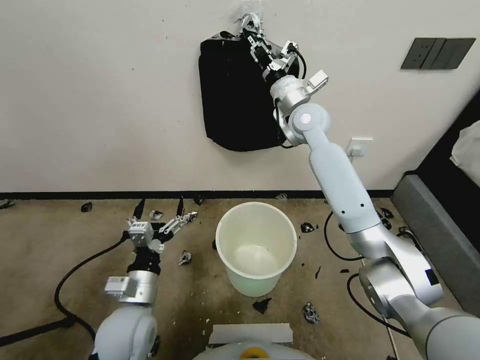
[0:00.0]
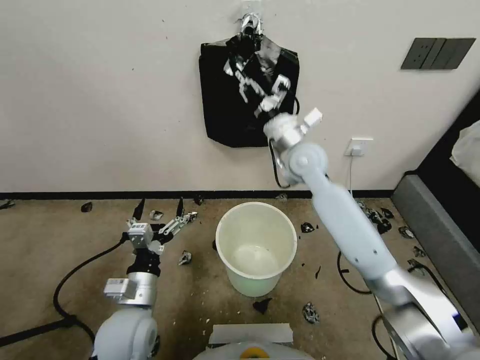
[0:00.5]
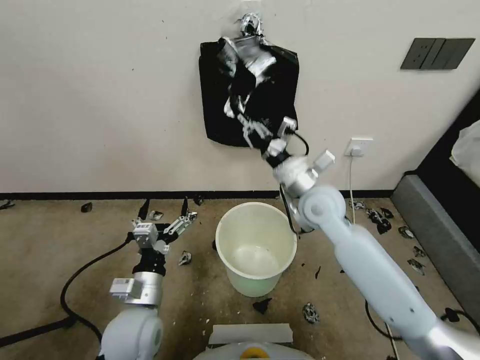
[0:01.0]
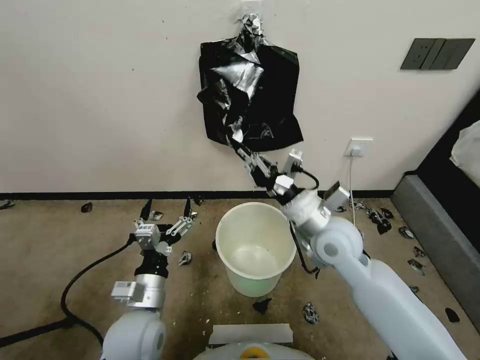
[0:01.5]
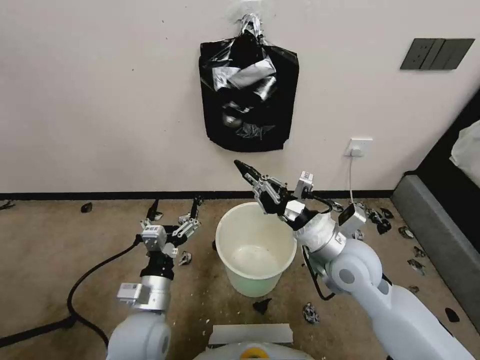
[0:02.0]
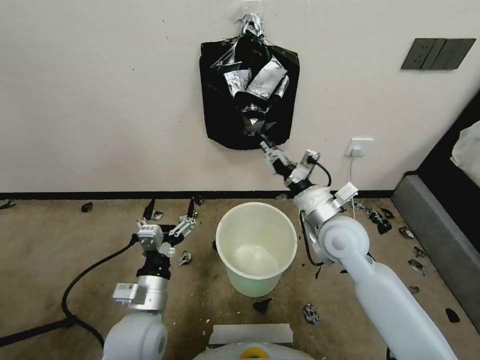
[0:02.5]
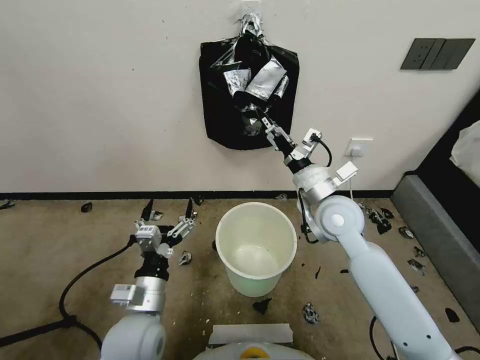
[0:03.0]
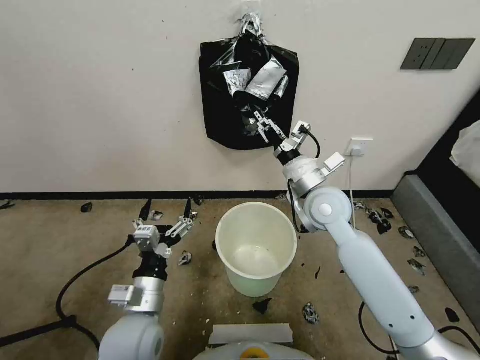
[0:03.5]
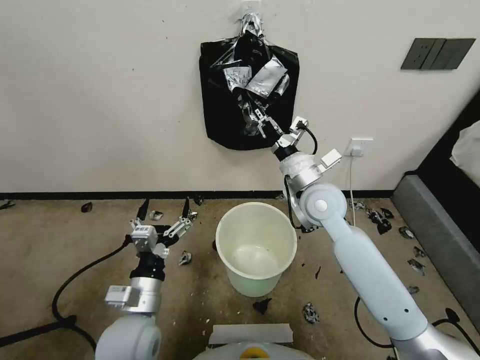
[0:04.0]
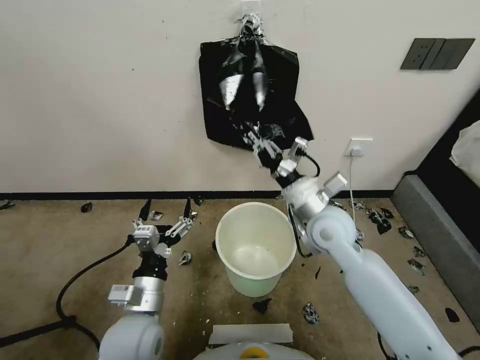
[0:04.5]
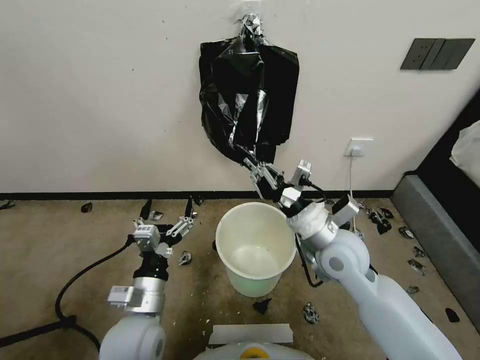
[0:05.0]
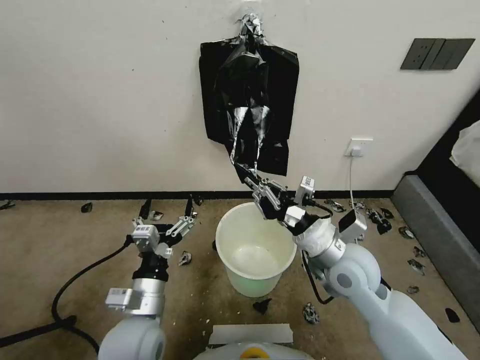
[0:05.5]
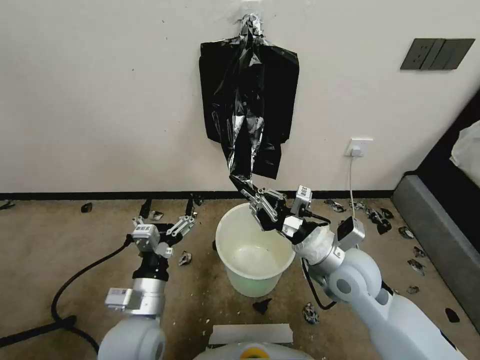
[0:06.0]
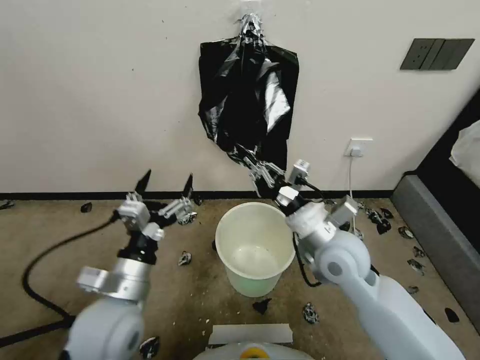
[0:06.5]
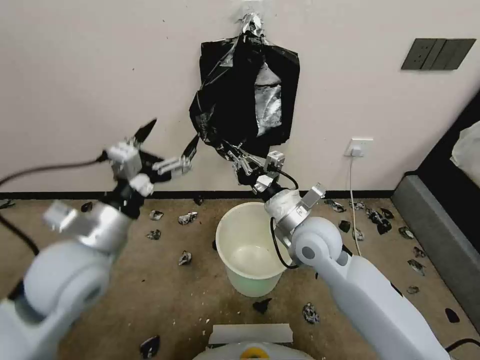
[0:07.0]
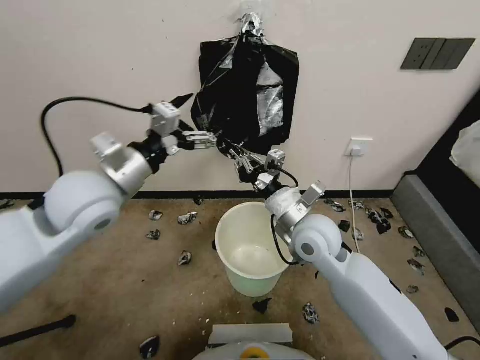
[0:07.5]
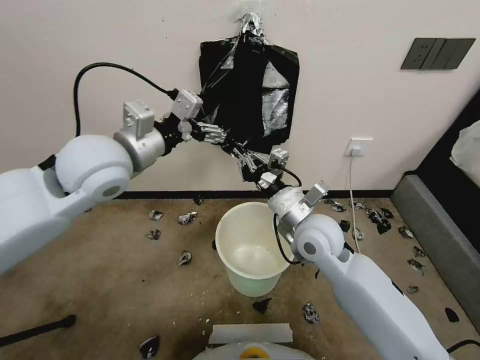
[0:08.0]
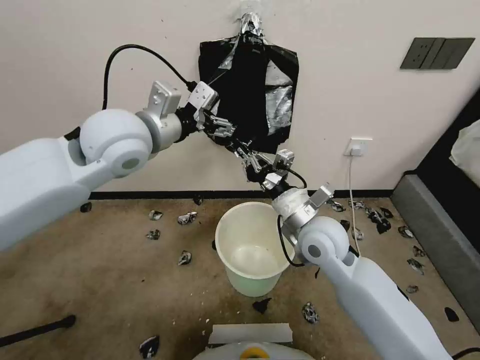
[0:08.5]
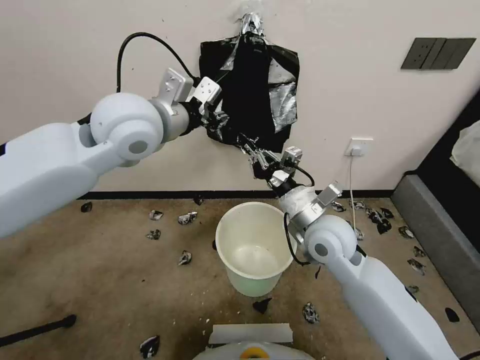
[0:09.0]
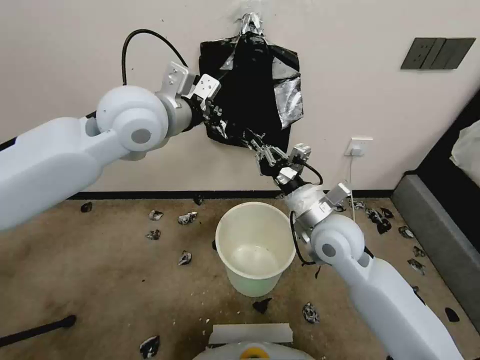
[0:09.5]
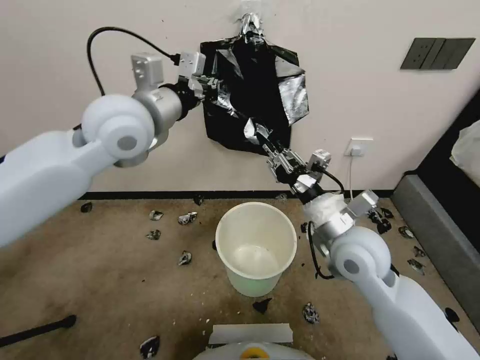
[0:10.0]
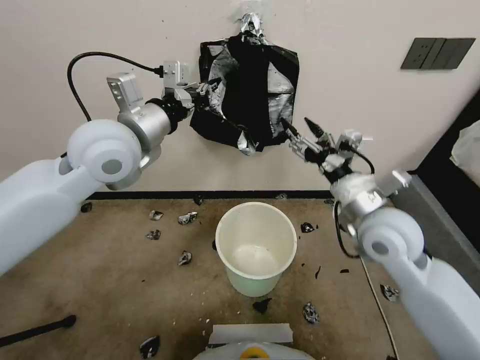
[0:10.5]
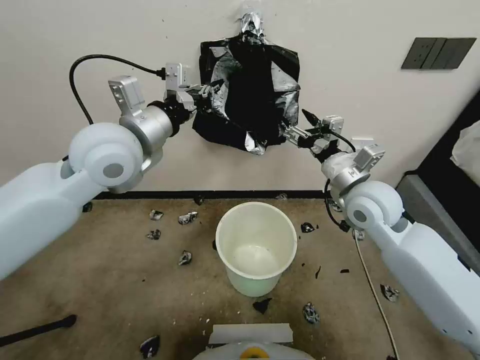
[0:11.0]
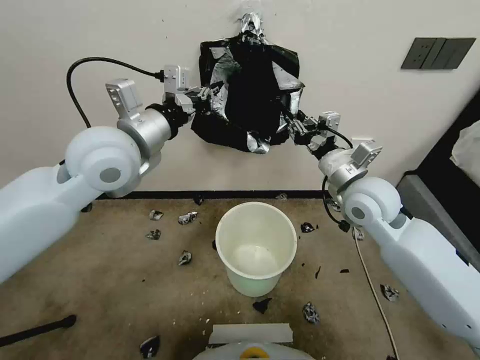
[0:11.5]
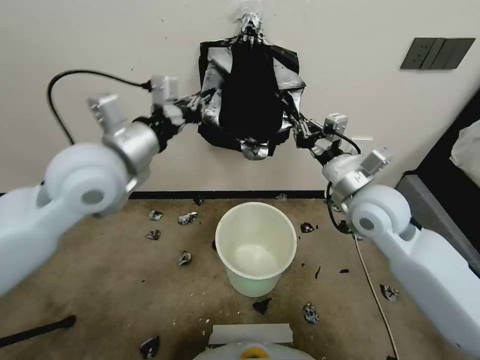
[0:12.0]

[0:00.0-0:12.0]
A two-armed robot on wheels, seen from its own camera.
Task of the whole recording: Place a trash bag onto the trash bin.
0:00.0 to 0:02.0: The right gripper goes roughly 30 cm backward and downward.
0:02.0 to 0:04.0: The right gripper travels forward by roughly 10 cm, and opens, then closes once more.
0:04.0 to 0:06.0: The right gripper moves backward and downward, roughly 15 cm.
0:06.0 to 0:08.0: The right gripper is displaced forward and to the left by approximately 10 cm, while the left gripper goes roughly 30 cm upward and forward.
0:08.0 to 0:10.0: The right gripper is displaced to the right by some 5 cm, while the left gripper moves about 5 cm, and closes.
0:10.0 to 0:12.0: The left gripper travels backward by roughly 5 cm; the right gripper moves forward, some 5 cm, and opens, then closes once more.

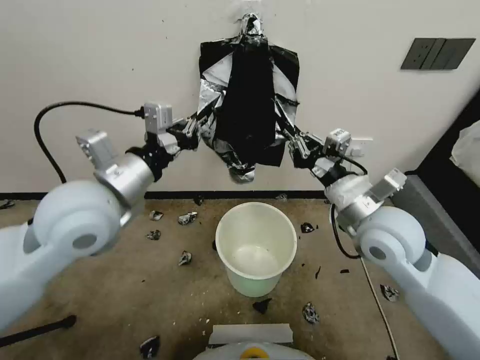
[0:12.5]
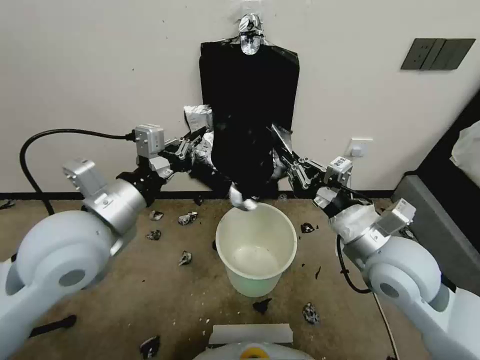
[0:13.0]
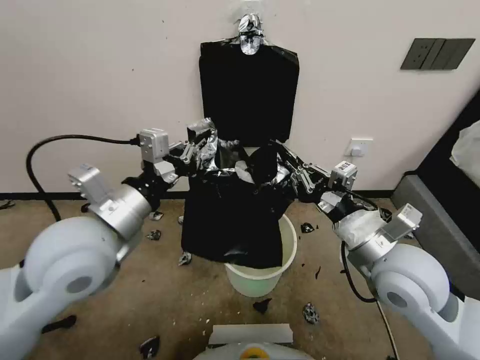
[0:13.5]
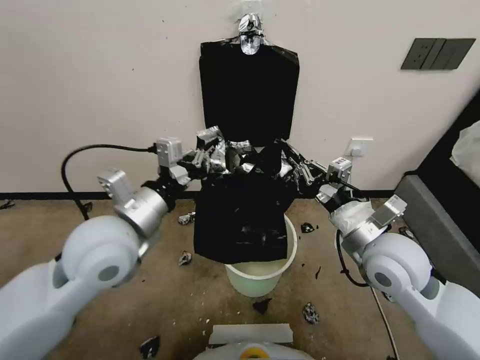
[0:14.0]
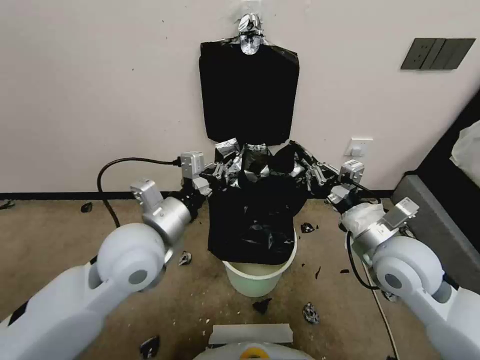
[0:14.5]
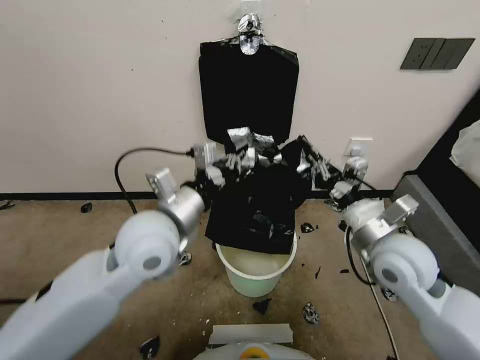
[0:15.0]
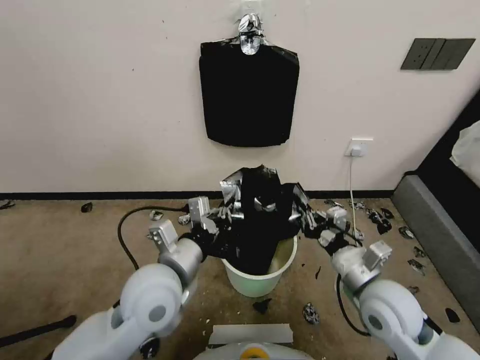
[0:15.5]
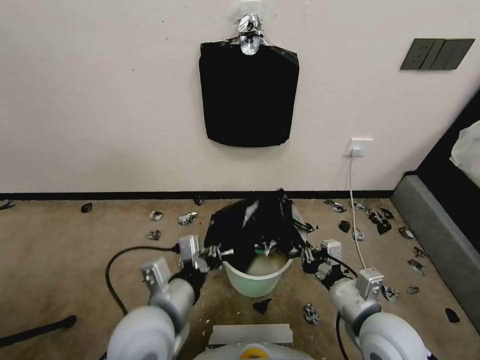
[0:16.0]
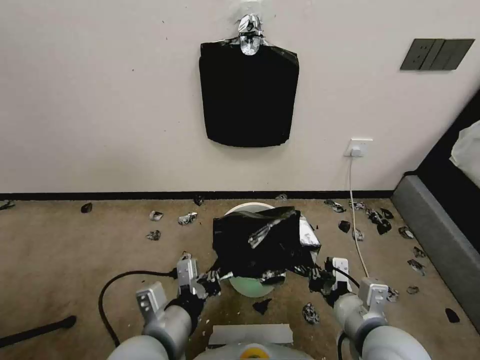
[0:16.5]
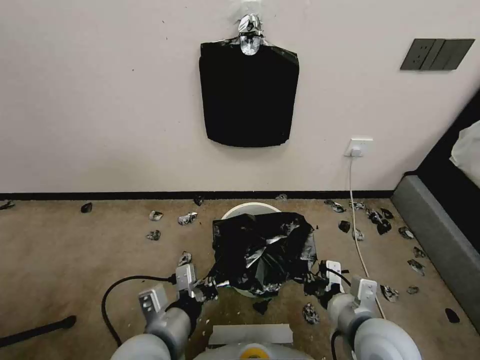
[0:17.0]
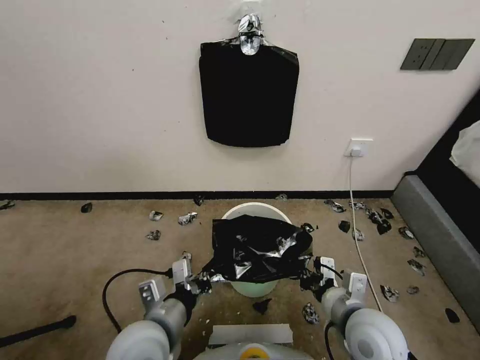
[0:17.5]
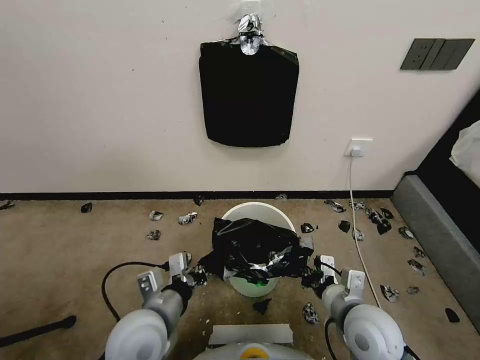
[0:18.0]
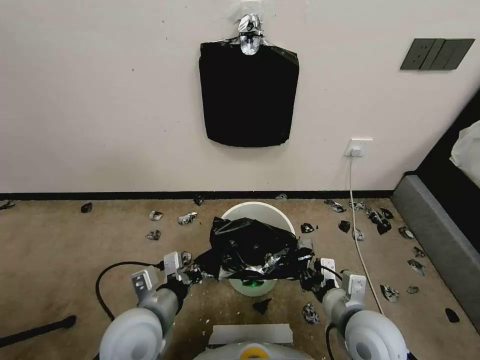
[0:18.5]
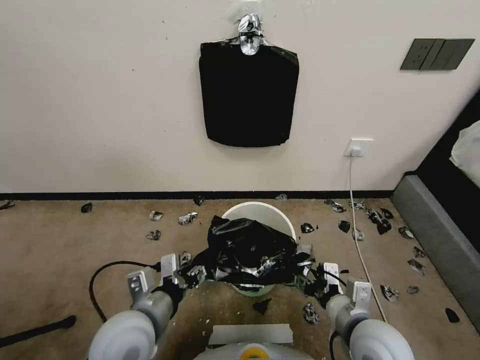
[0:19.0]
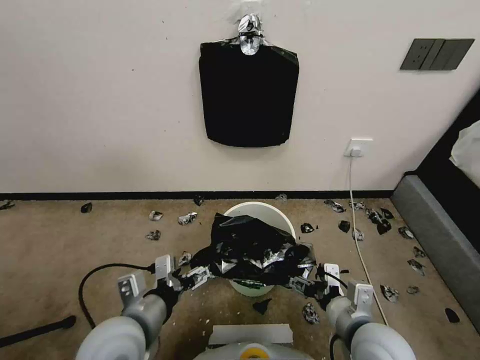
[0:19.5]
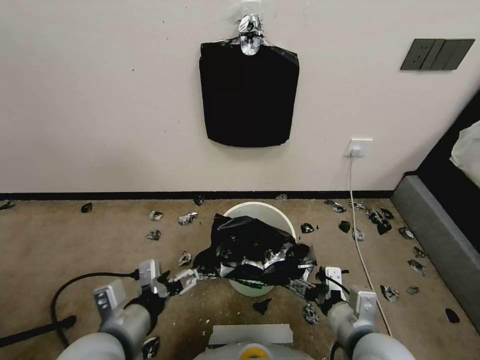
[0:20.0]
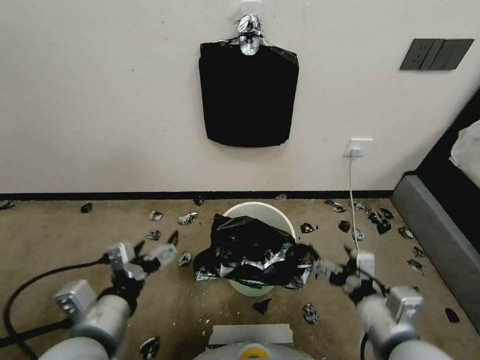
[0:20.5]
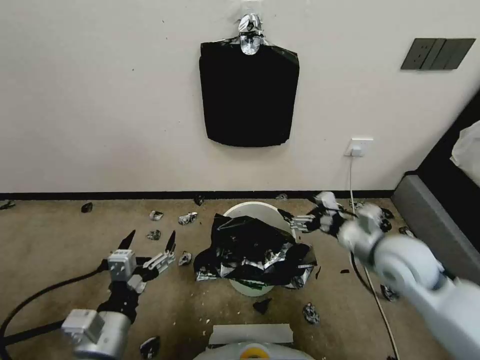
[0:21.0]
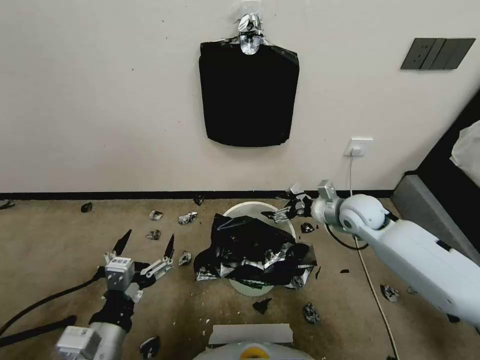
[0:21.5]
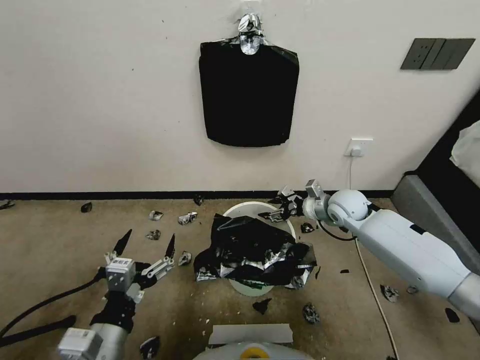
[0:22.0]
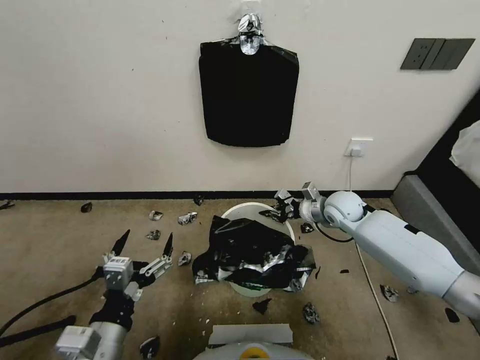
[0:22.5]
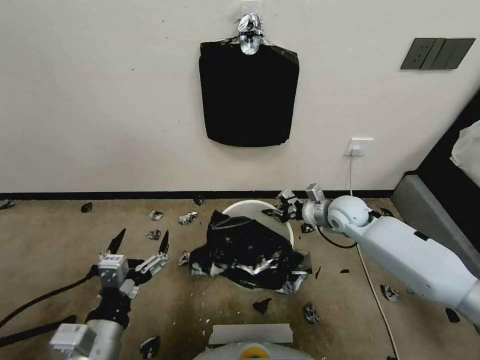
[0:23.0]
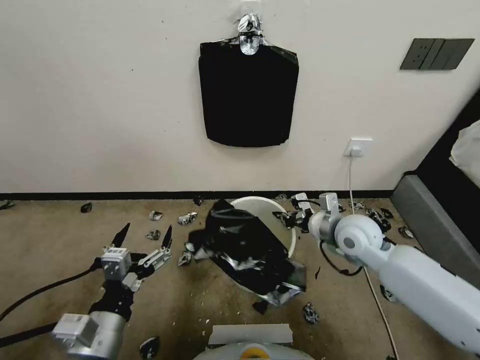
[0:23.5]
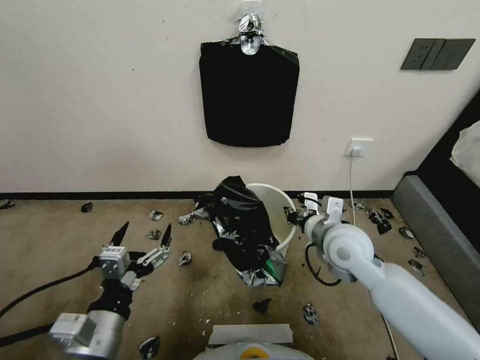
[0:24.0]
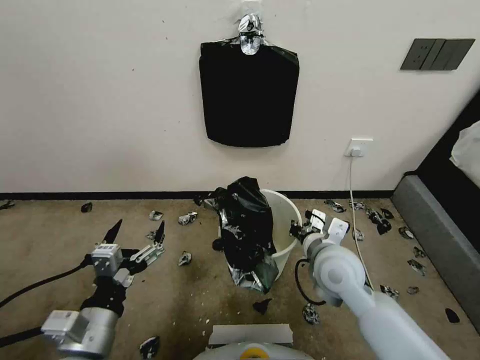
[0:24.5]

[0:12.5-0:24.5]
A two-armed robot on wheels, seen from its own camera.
Task of the whole recording: Place a trash bag onto the trash bin.
0:12.5 to 0:14.5: The left gripper heads downward and to the right, covering approximately 10 cm; the right gripper moves roughly 5 cm.
0:14.5 to 0:16.5: The two grippers go some 15 cm backward and downward.
0:16.5 to 0:18.5: The left gripper moves about 5 cm. The right gripper moves some 5 cm.
0:18.5 to 0:20.5: The grippers both shift upward and backward by roughly 10 cm. The left gripper opens. The right gripper opens.
0:20.5 to 0:22.5: The right gripper is displaced forward by about 35 cm, and closes its fingers. The left gripper shifts by about 5 cm.
0:22.5 to 0:24.5: The right gripper travels backward and to the left by some 20 cm.

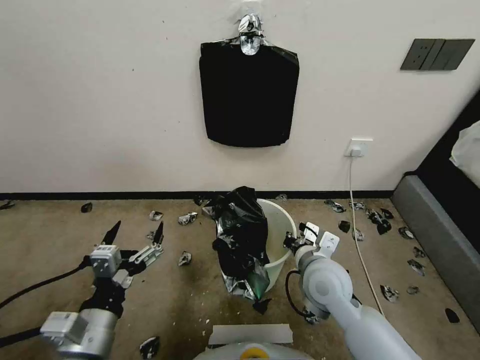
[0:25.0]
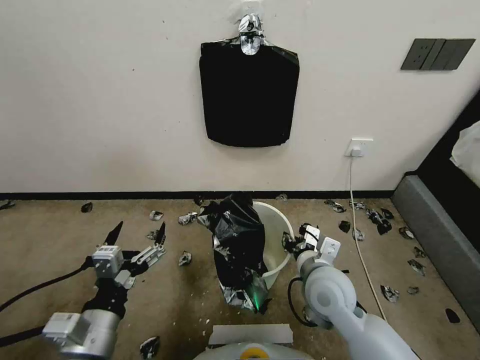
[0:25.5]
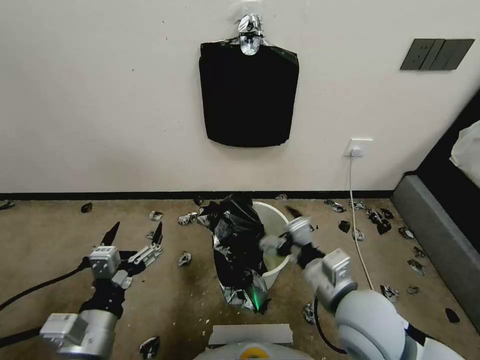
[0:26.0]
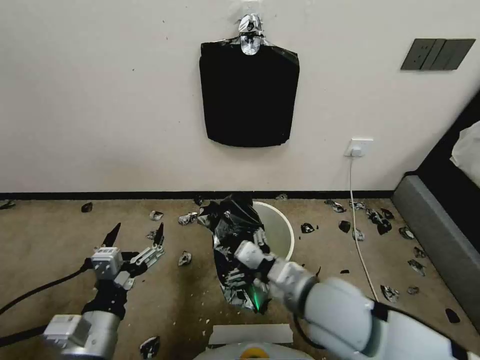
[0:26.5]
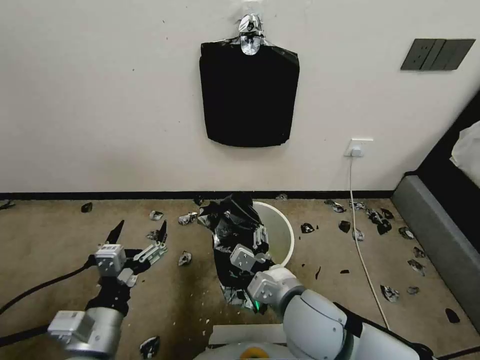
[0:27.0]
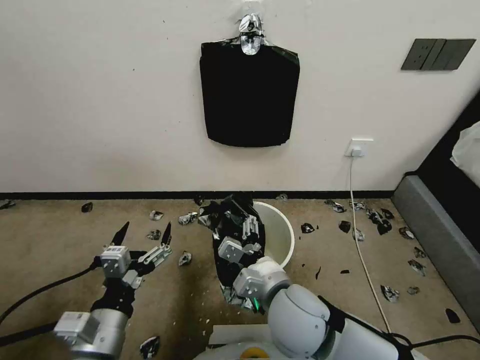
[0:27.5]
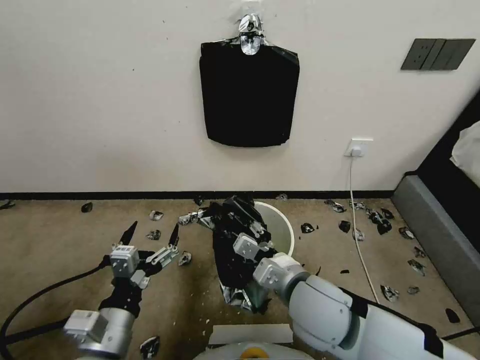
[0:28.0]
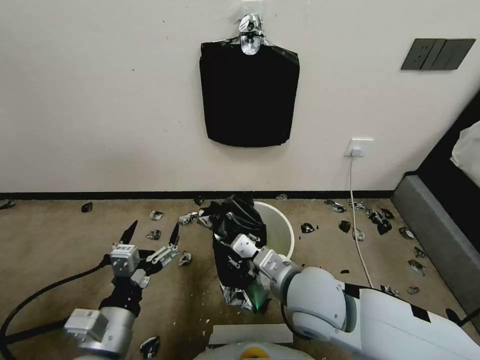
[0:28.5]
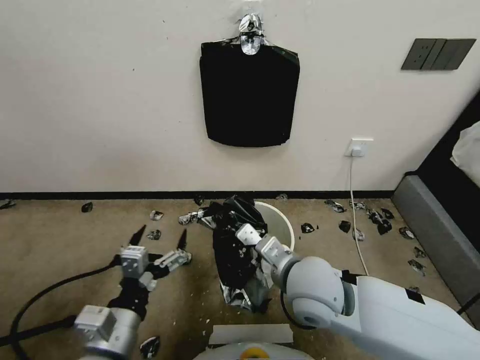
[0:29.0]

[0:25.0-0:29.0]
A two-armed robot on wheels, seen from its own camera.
Task of the whole recording: Place a trash bag onto the trash bin.
0:25.0 to 0:27.0: The right gripper moves backward and to the left, approximately 10 cm, and opens up.
0:27.0 to 0:29.0: The right gripper changes place by roughly 5 cm, and closes up.
